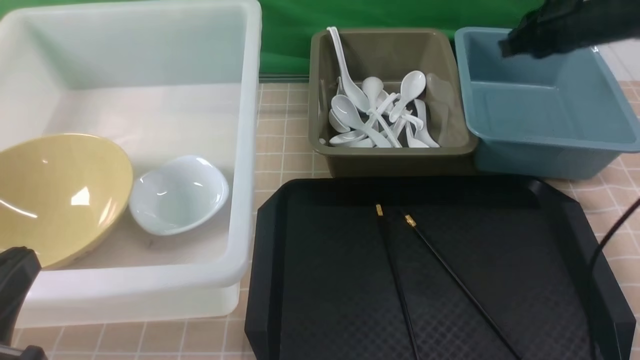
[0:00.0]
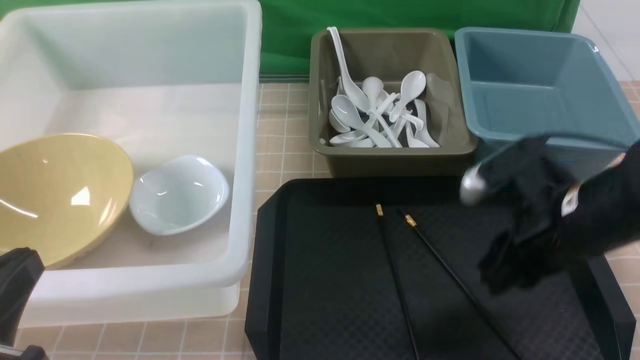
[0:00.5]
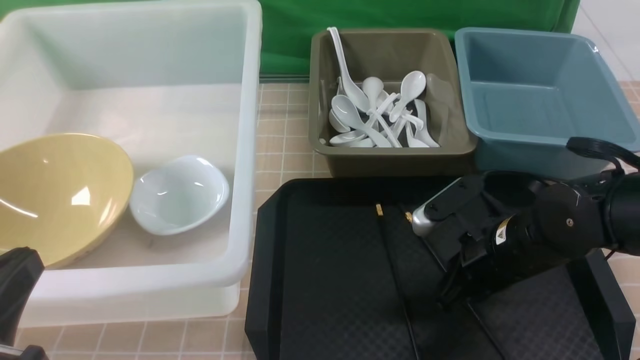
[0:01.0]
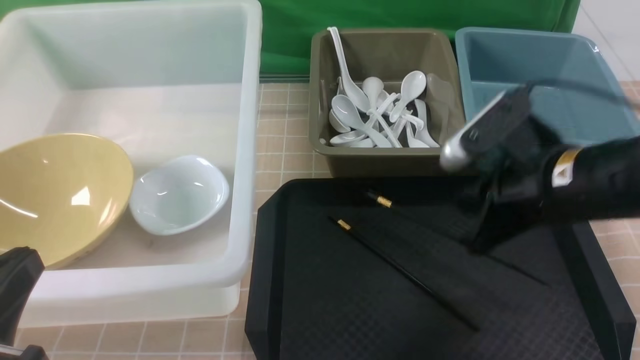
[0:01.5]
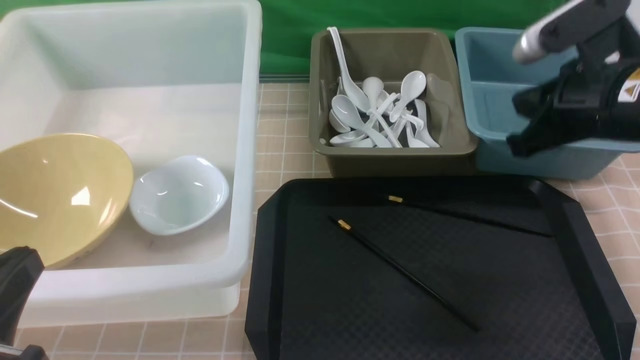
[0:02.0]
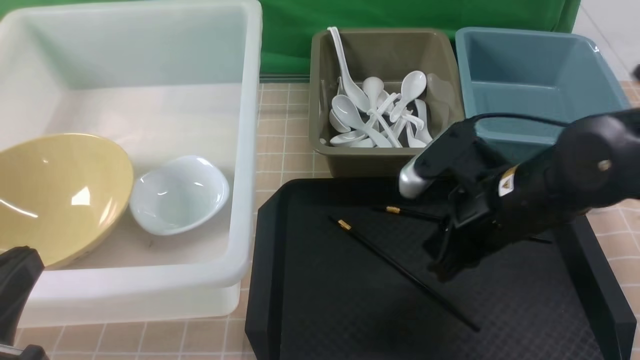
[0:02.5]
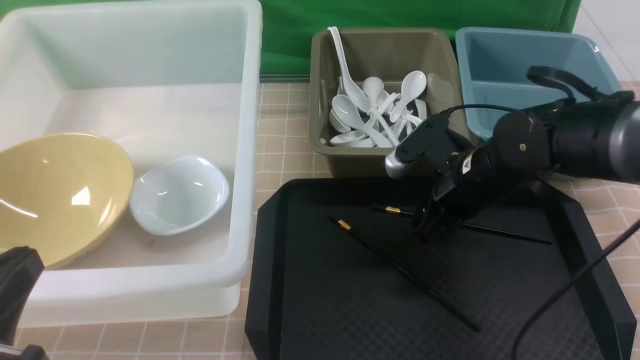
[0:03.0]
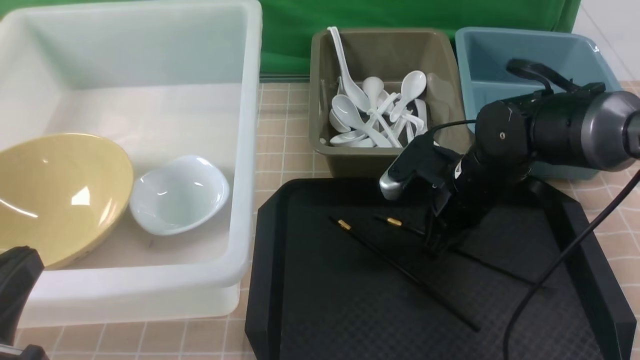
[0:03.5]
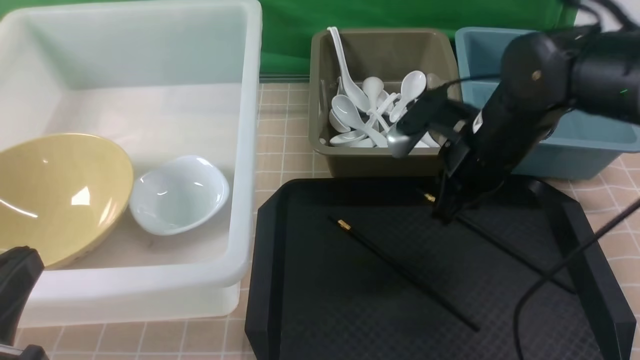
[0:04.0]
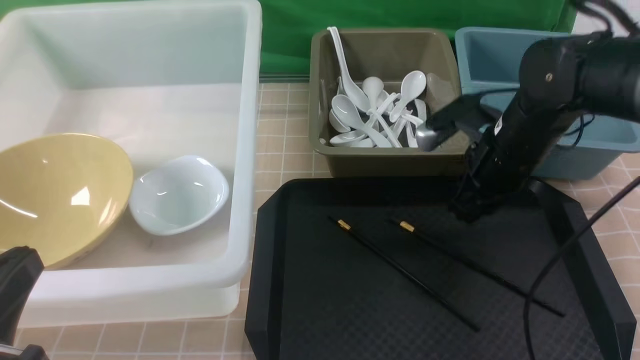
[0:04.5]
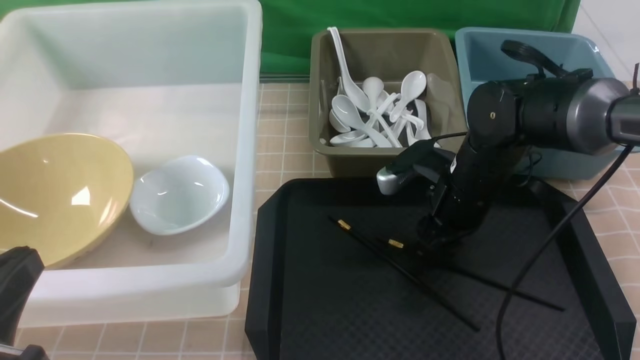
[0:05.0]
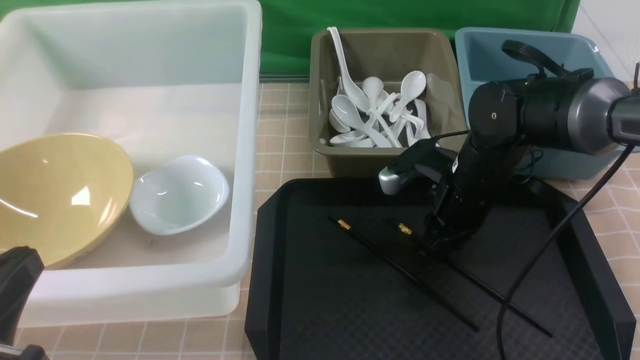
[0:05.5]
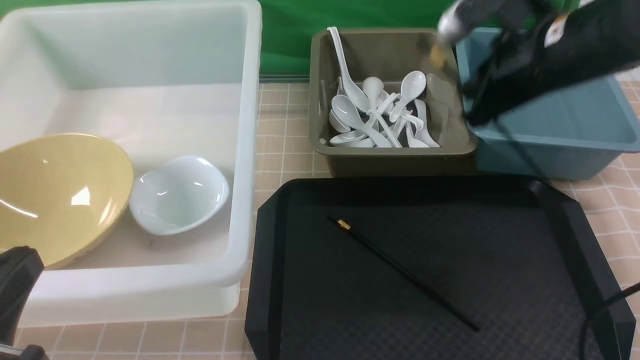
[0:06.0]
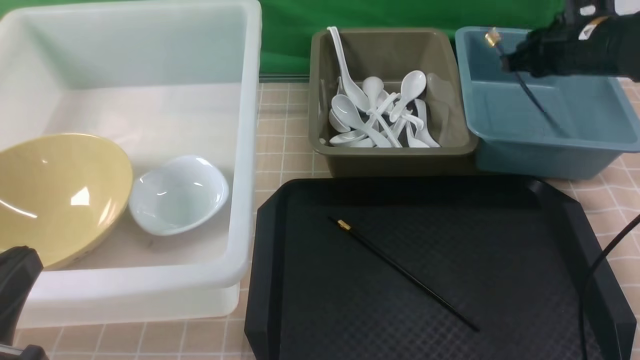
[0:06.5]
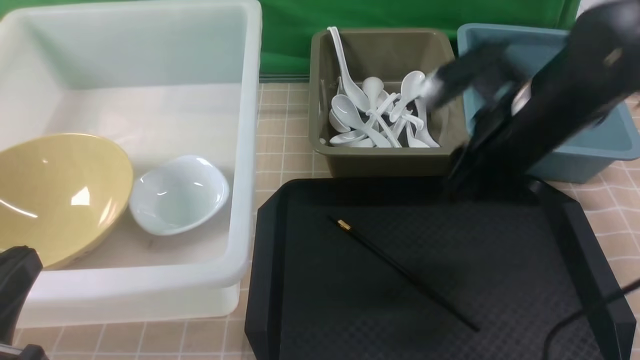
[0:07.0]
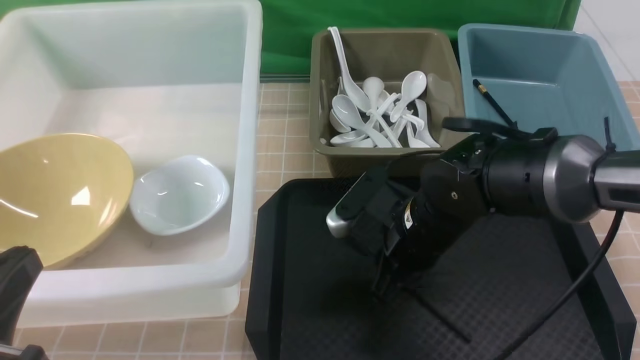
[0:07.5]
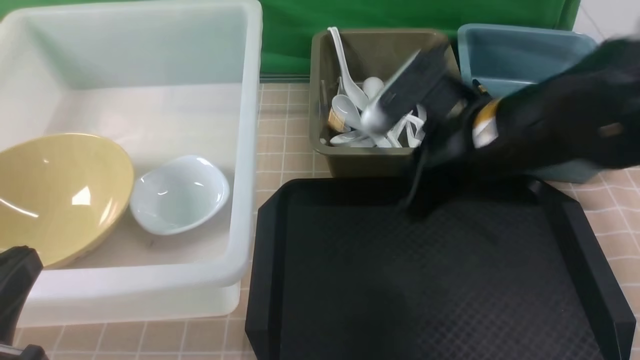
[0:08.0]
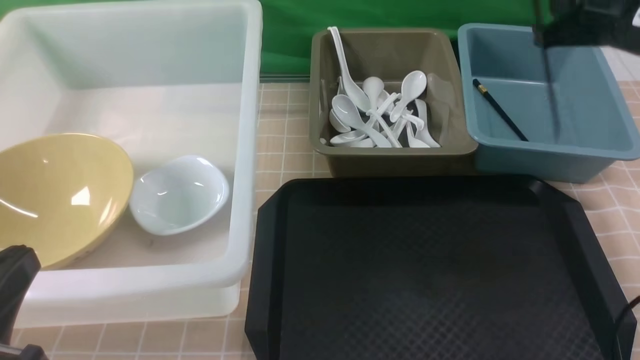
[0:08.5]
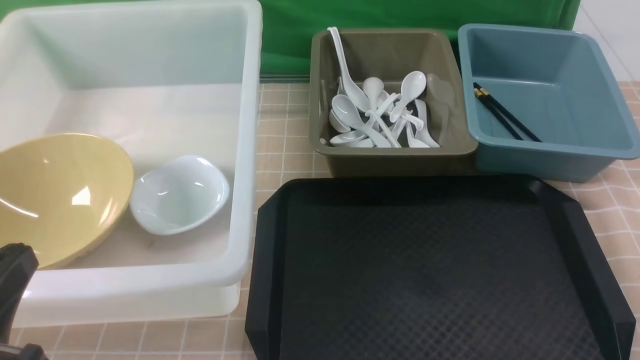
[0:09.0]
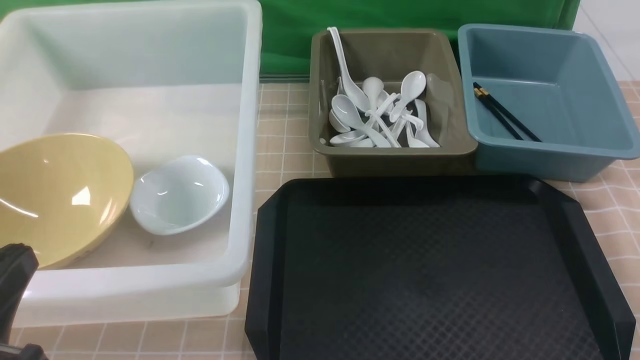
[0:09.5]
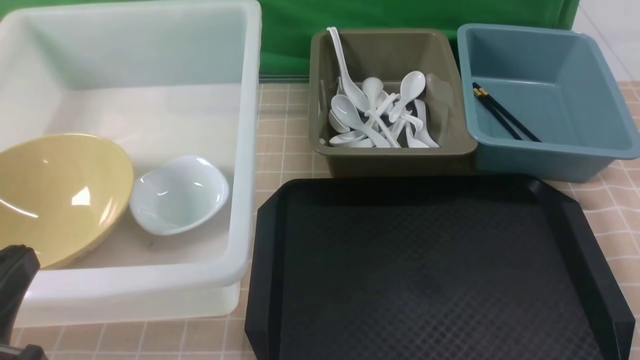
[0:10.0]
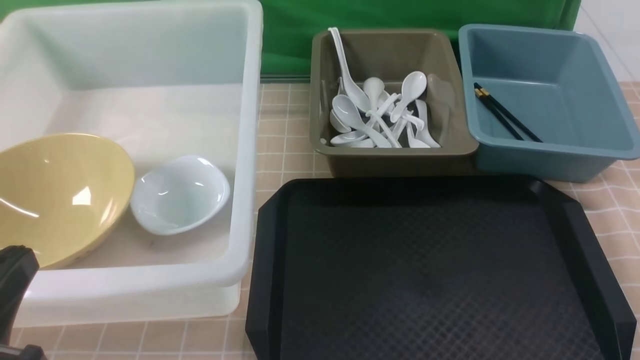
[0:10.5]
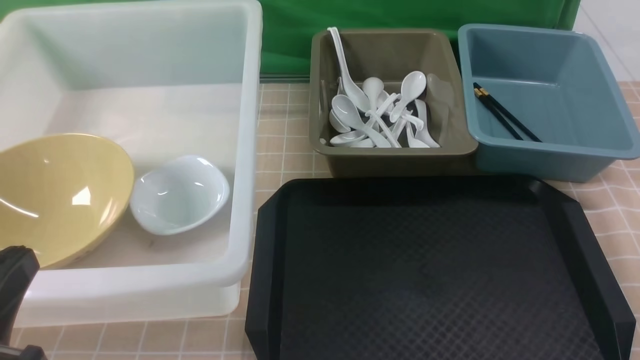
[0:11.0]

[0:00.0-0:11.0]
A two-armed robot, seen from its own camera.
Task of the whole recording: on brown table put chopsticks spoon bowls plates into blue grey white boxes.
Step, 0:00.0 to 0:05.5: use the right arm to grab a chopstick.
Step, 0:06.0 to 0:06.5: use the right arm to put a chopstick into the small storage box on the right.
Step, 0:07.0 to 0:07.5: use the right arm to grab a chopstick.
Step, 0:08.0 to 0:08.5: use the right arm to put a chopstick into the small storage box on the right.
0:00.0 to 0:02.0: The right gripper shifts approximately 15 cm backward.
0:02.0 to 0:03.5: The right gripper heads downward, to the left and forward, covering some 15 cm, and opens and closes again.
0:05.5 to 0:07.5: The right gripper moves to the left and backward, about 10 cm.
0:07.5 to 0:09.0: The right gripper heads upward and to the right, covering approximately 30 cm.

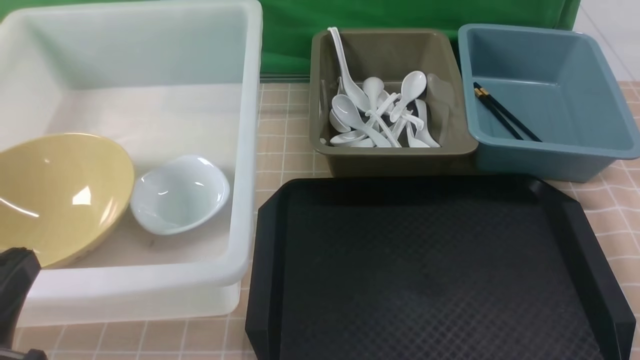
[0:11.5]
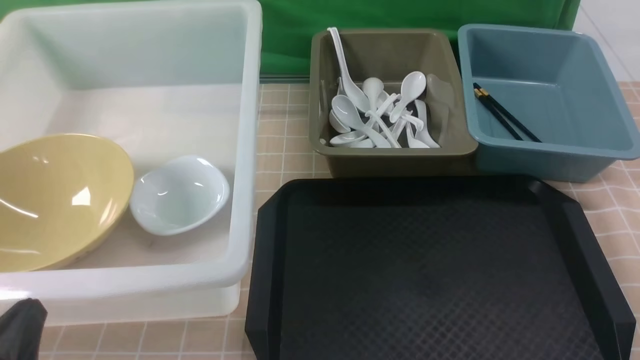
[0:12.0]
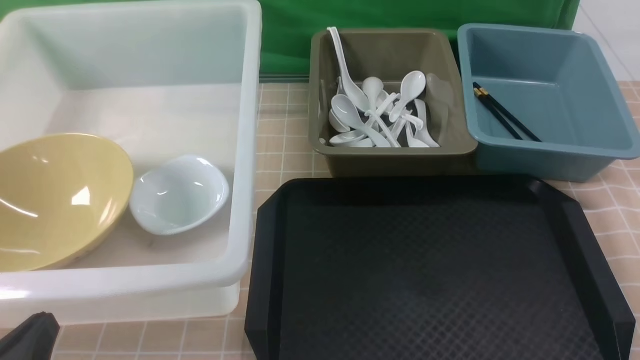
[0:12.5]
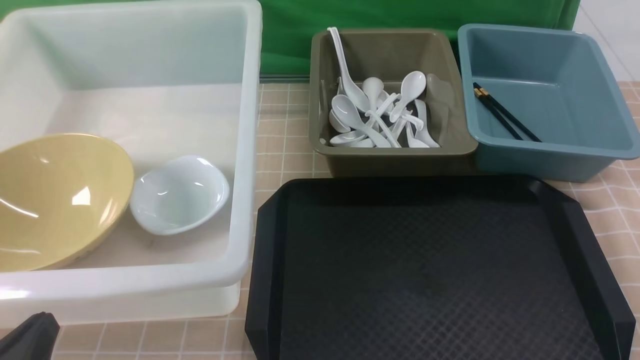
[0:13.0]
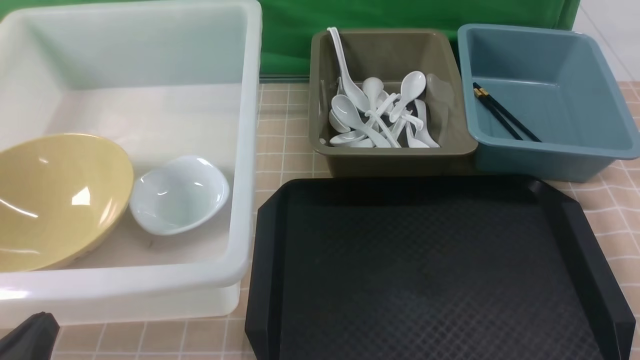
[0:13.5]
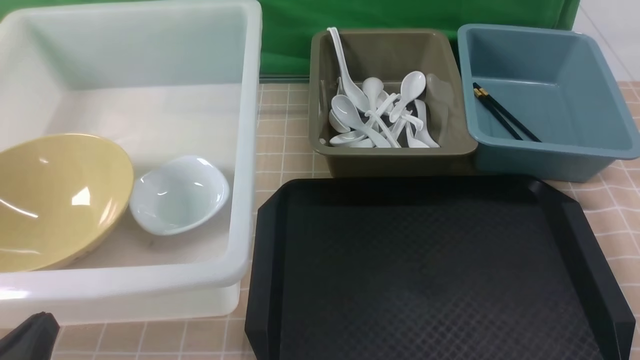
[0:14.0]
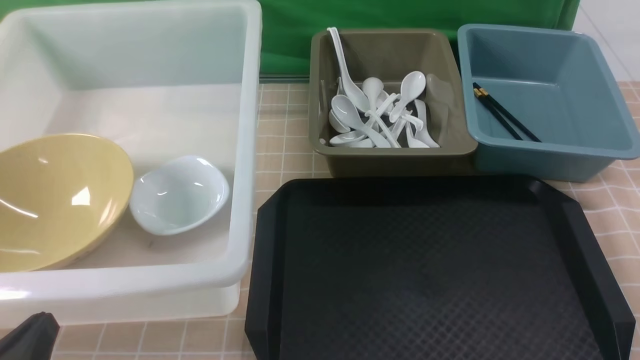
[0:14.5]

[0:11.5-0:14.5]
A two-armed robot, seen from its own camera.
Task of the whole recording: on brown table put chopsticks spoon bowls plates into blue grey white boxes.
0:11.5 to 0:13.0: The left gripper travels downward by roughly 10 cm.
0:13.0 to 0:14.5: The two grippers keep their place.
